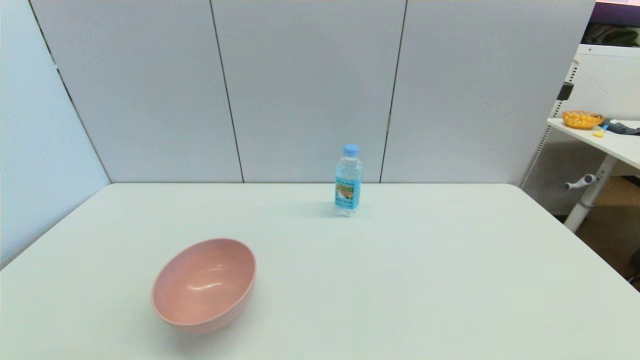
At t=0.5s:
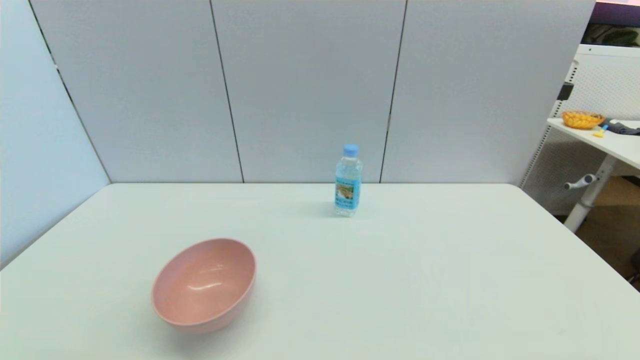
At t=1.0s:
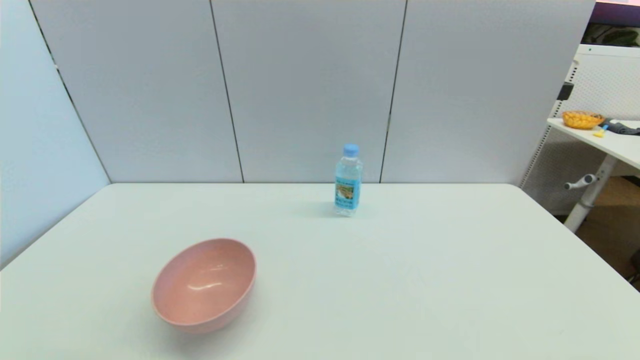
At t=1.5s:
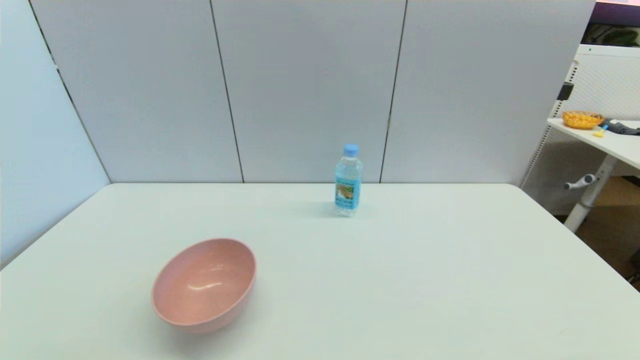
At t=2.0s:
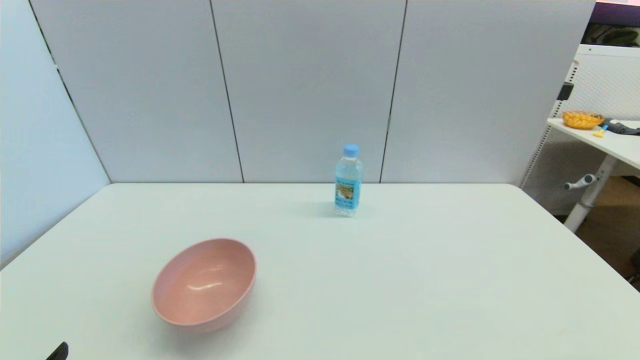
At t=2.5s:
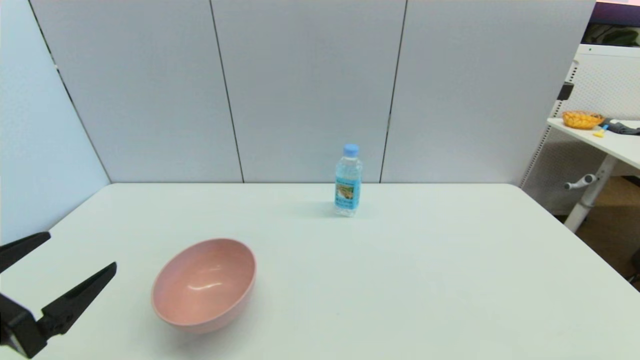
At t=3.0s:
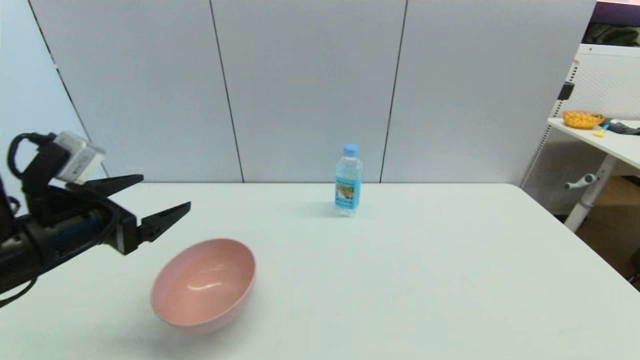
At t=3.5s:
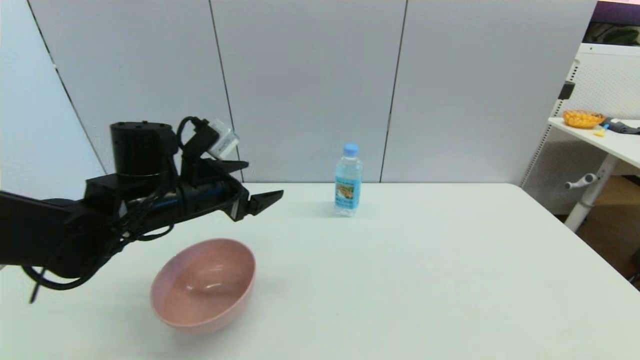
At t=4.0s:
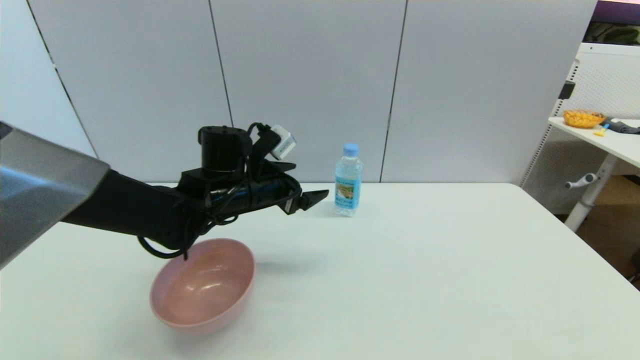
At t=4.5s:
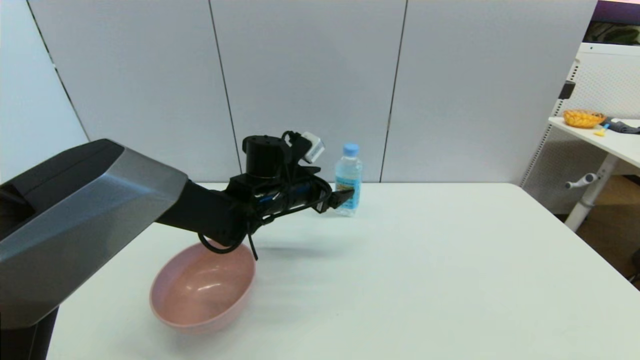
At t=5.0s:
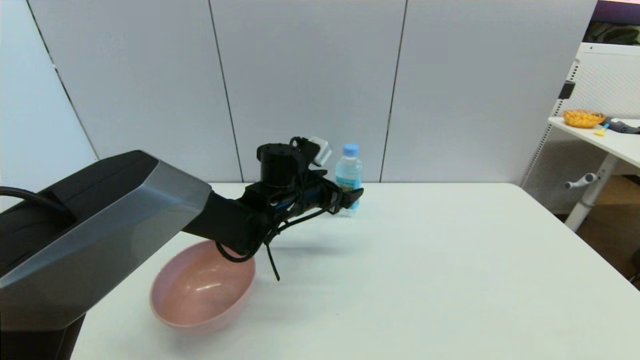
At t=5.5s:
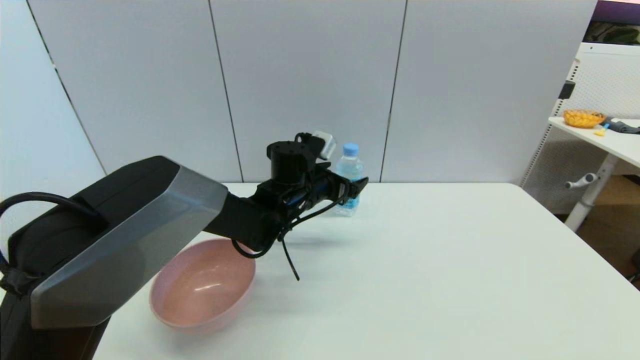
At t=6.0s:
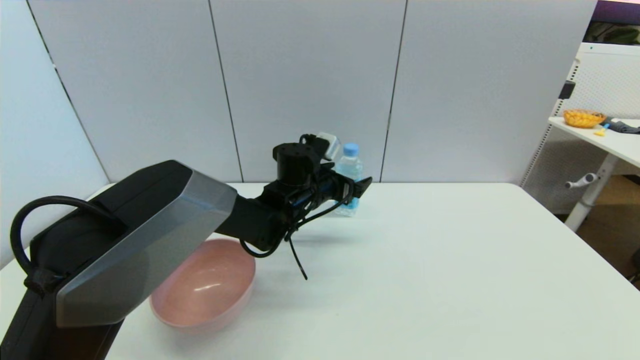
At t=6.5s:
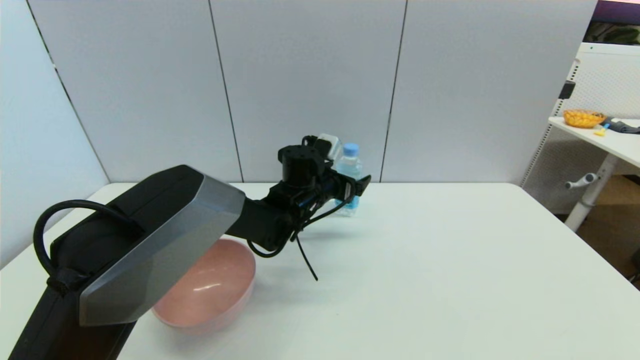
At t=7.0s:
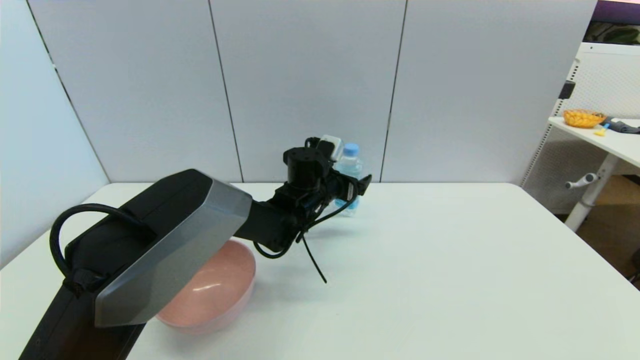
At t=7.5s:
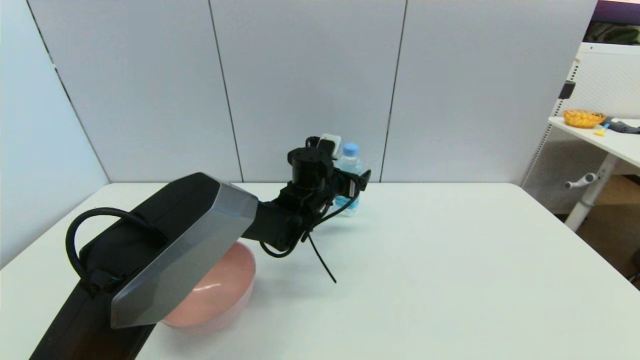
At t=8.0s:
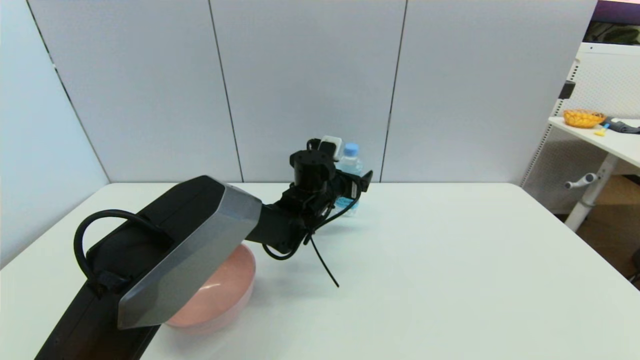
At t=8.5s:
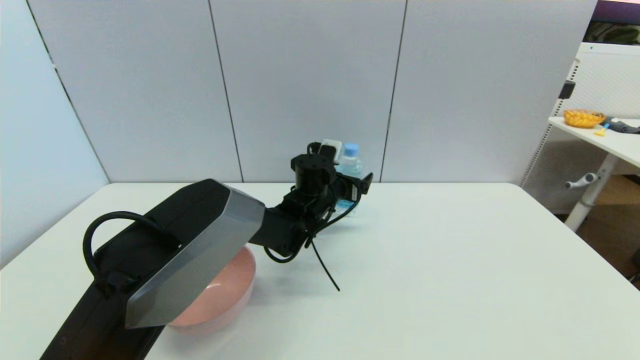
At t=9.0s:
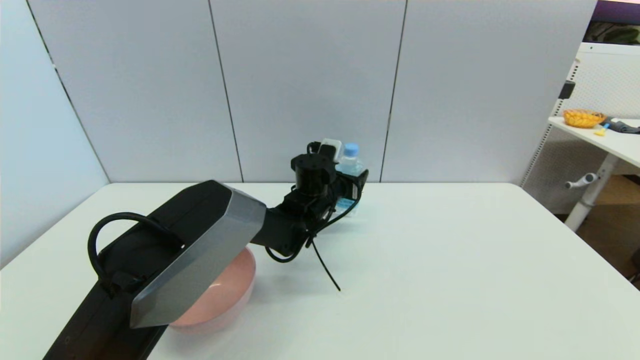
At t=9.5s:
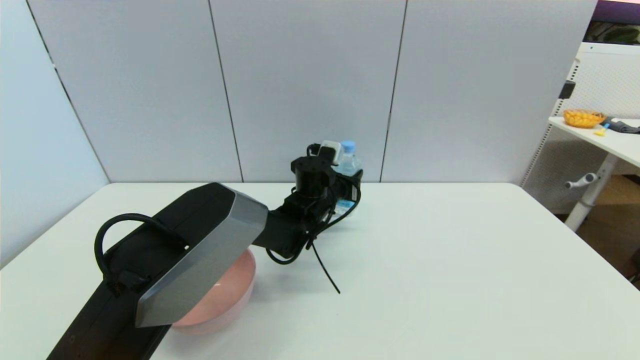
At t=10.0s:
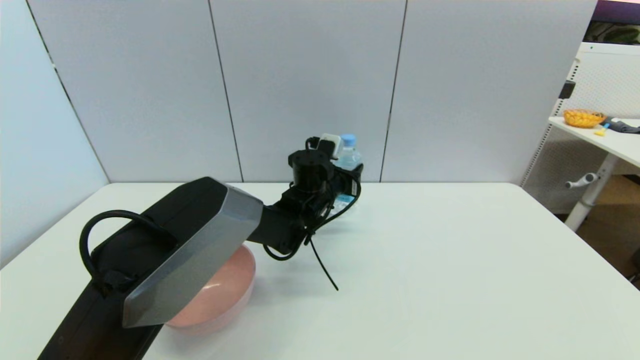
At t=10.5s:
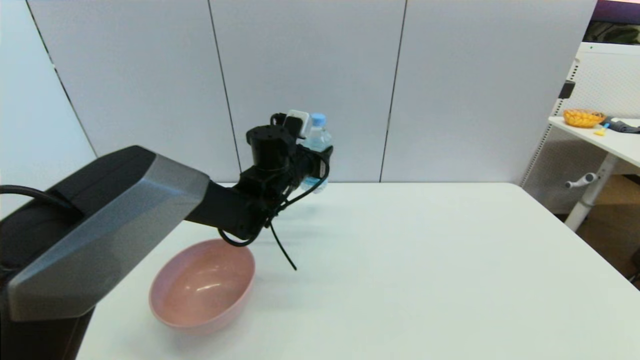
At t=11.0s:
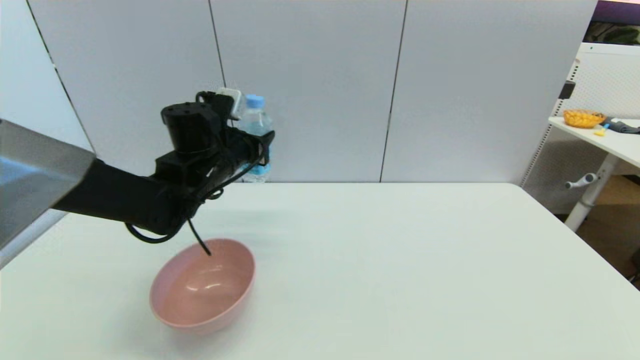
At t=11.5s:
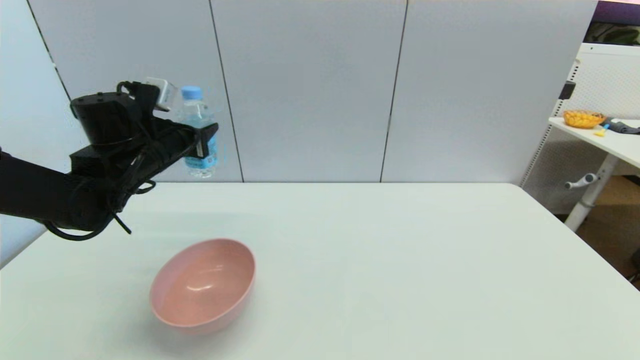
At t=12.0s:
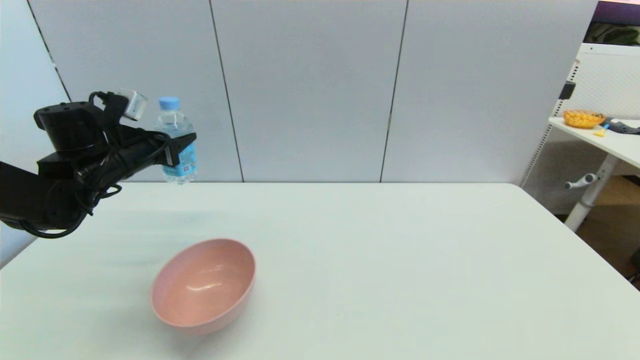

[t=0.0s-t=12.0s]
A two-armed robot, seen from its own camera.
Step, t=2.0s to t=9.5s: Grasp the soda water with left gripper.
t=2.0s to t=4.0s: The left gripper is displaced forward and to the right by approximately 40 cm.
t=4.0s to t=6.0s: The left gripper moves to the right, roughly 10 cm.
t=6.0s to t=8.0s: The grippers move only a little.
t=8.0s to t=10.0s: The left gripper closes its fingers.
t=10.0s to t=12.0s: The left gripper shifts about 30 cm to the left.

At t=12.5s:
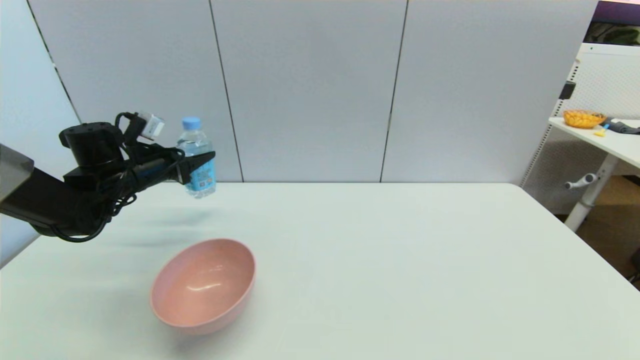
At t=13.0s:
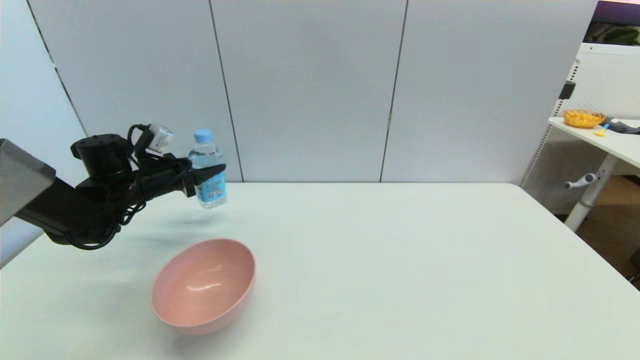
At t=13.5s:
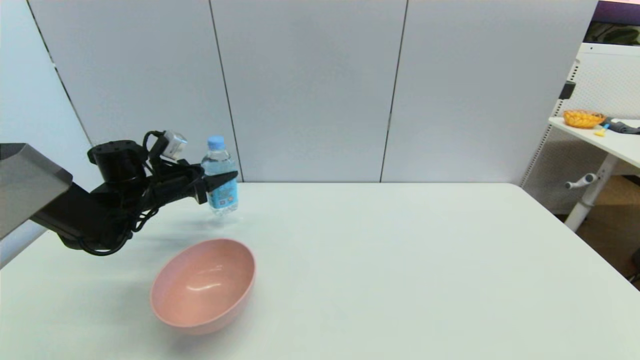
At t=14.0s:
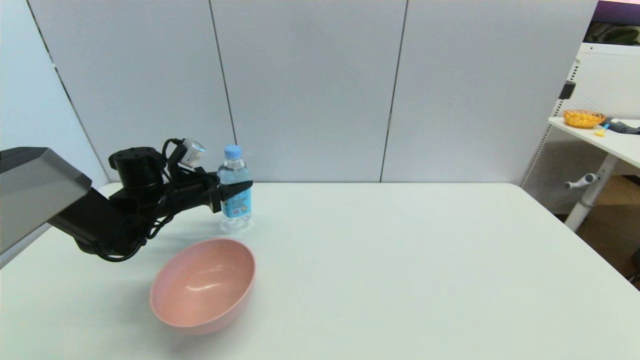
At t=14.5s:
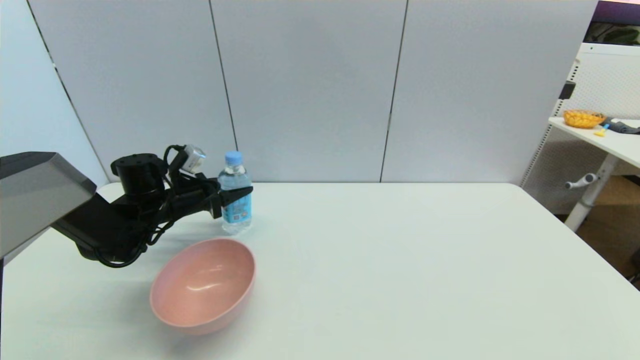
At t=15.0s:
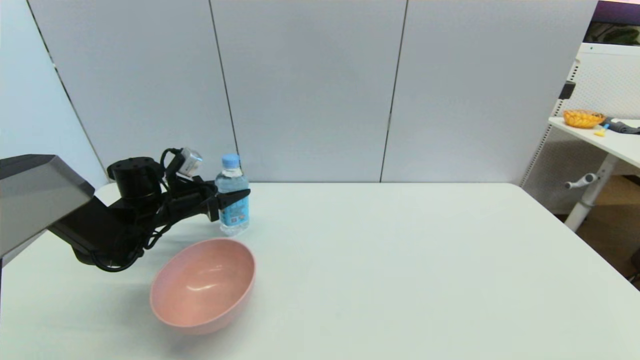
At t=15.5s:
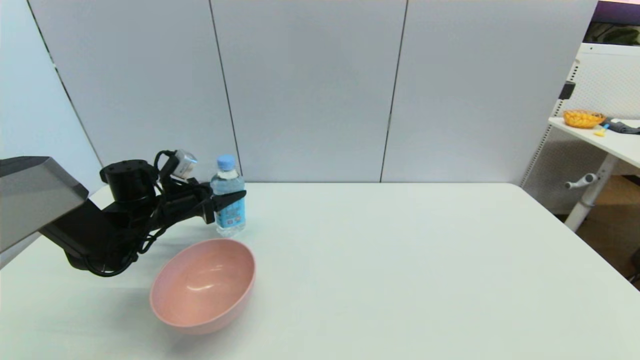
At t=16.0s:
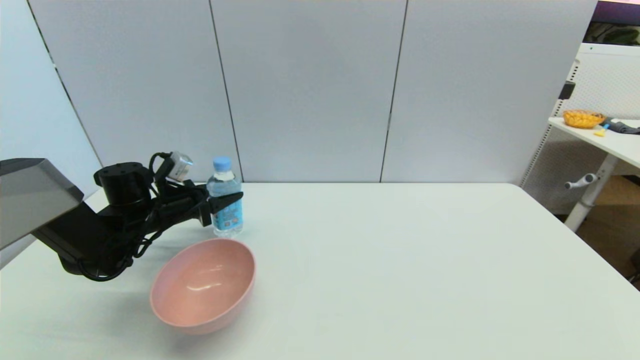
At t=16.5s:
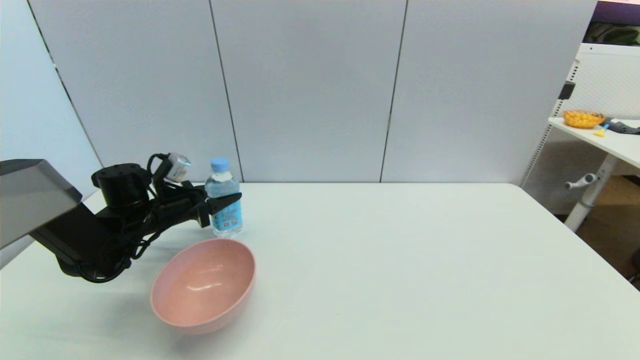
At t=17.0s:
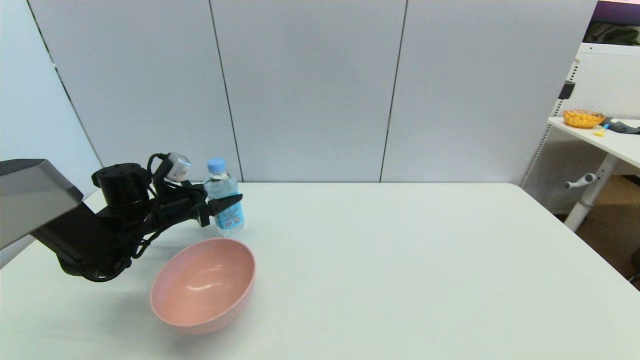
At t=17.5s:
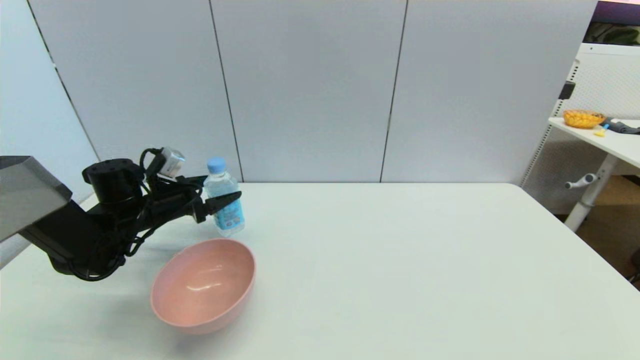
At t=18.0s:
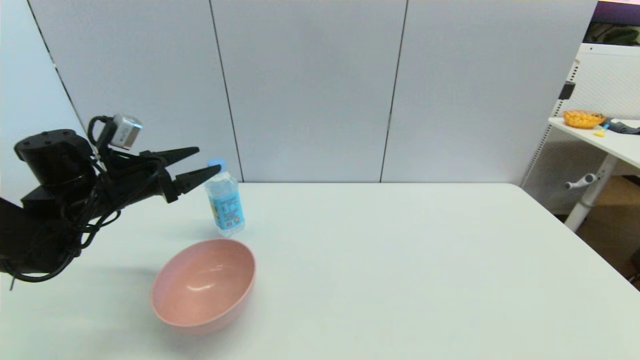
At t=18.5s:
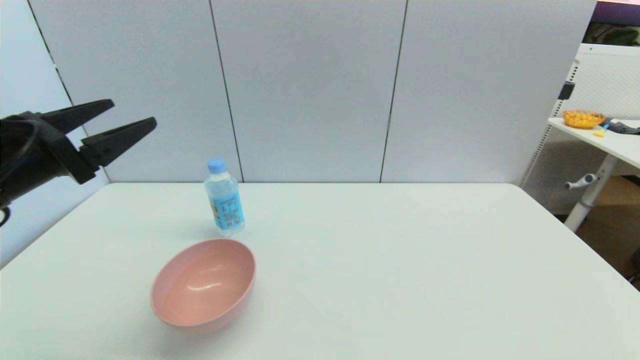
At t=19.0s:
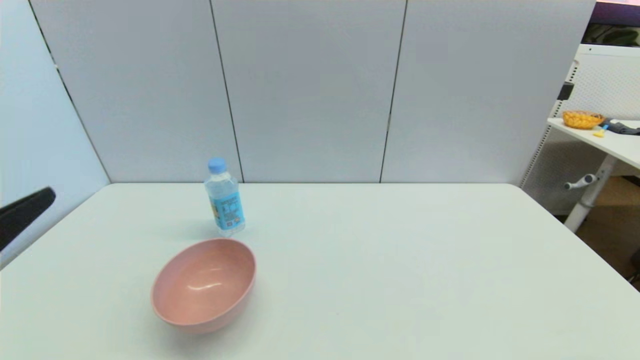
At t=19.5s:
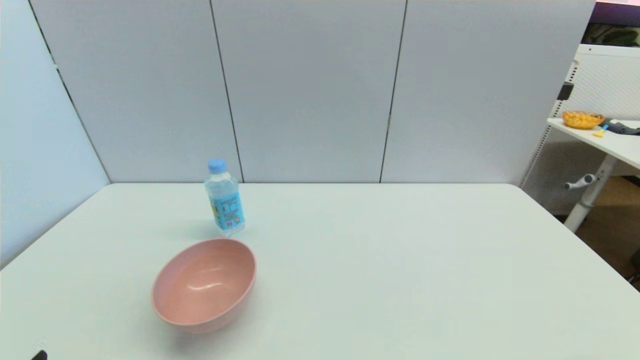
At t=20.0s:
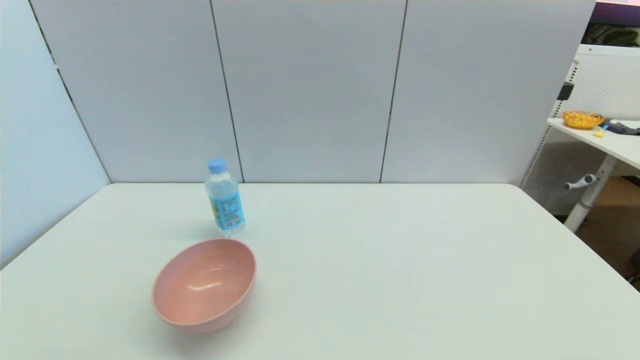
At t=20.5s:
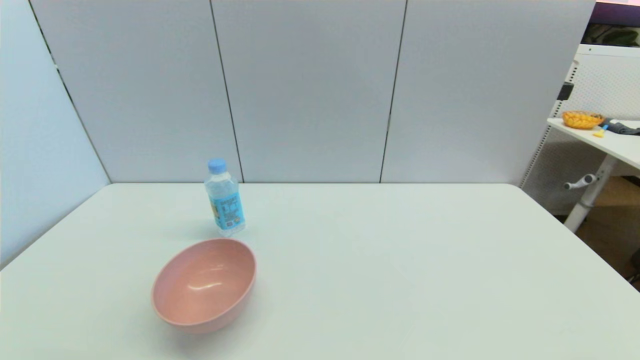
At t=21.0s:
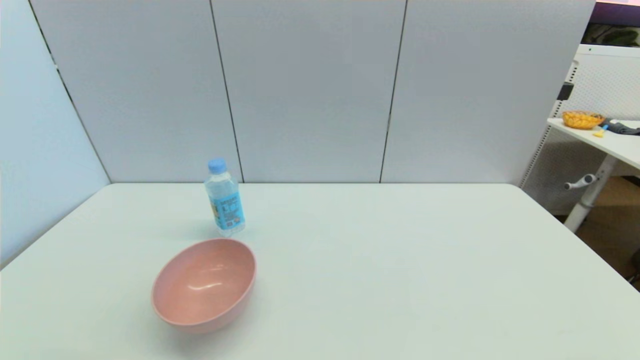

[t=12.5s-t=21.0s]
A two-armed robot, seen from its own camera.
Step, t=12.5s to t=16.5s: Place the soda water on the table with left gripper.
t=12.5s to t=14.5s: The left gripper travels downward and to the right by approximately 10 cm.
t=14.5s to t=16.5s: The grippers make only small movements.
t=16.5s to t=19.0s: The left gripper is displaced backward and upward by some 35 cm, and opens its fingers.
t=19.0s to t=21.0s: The left gripper moves downward and backward, roughly 20 cm.
